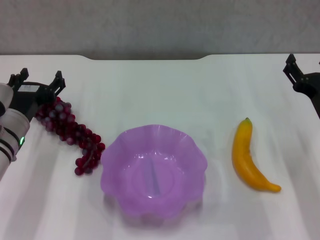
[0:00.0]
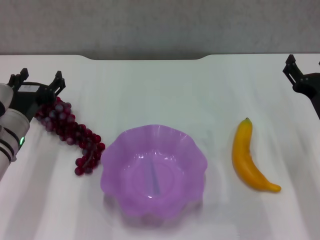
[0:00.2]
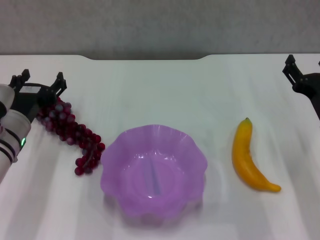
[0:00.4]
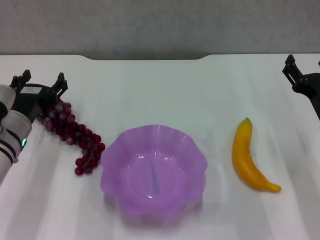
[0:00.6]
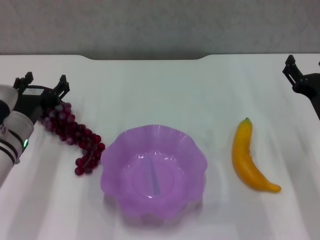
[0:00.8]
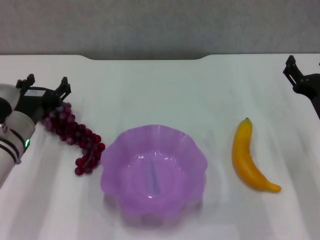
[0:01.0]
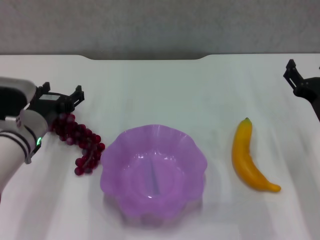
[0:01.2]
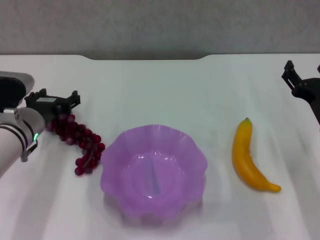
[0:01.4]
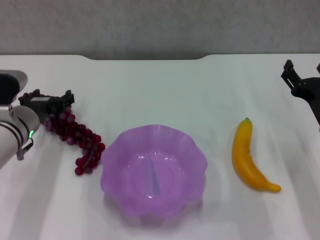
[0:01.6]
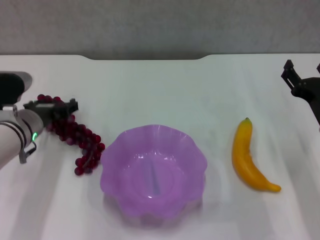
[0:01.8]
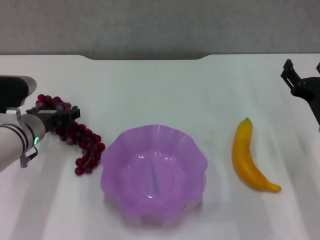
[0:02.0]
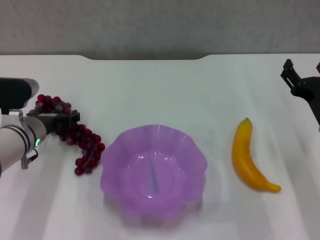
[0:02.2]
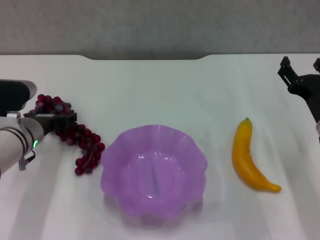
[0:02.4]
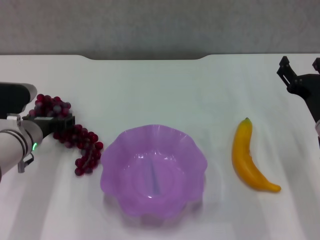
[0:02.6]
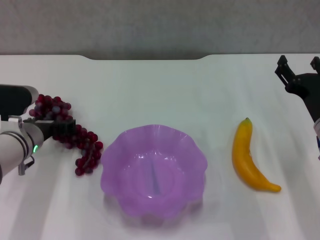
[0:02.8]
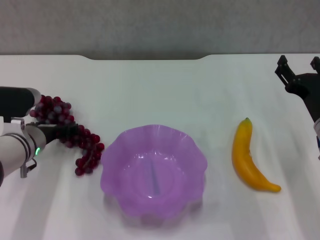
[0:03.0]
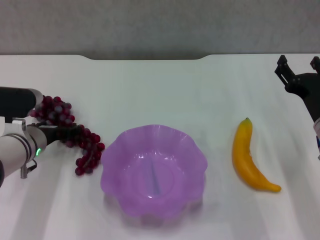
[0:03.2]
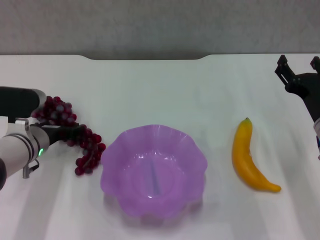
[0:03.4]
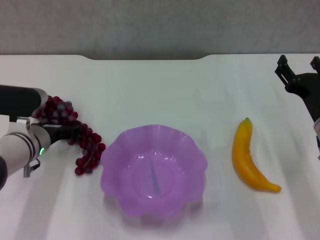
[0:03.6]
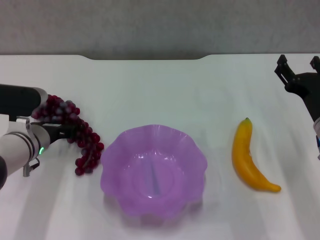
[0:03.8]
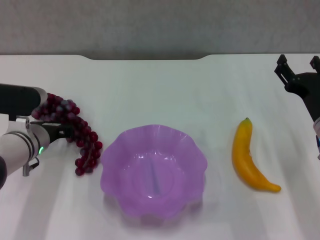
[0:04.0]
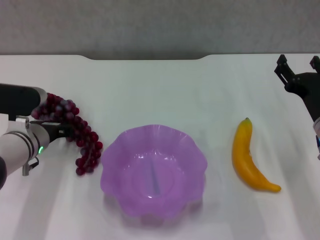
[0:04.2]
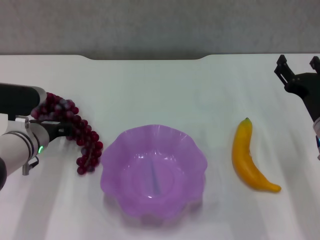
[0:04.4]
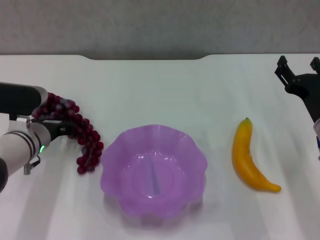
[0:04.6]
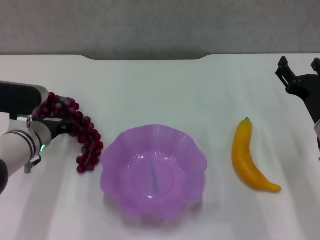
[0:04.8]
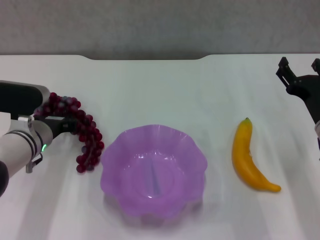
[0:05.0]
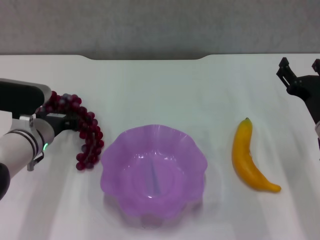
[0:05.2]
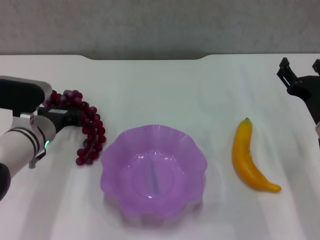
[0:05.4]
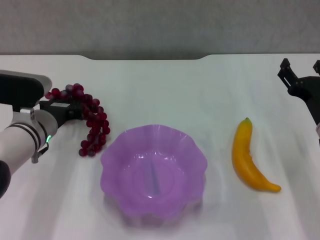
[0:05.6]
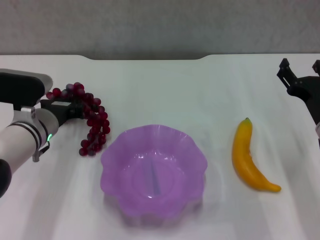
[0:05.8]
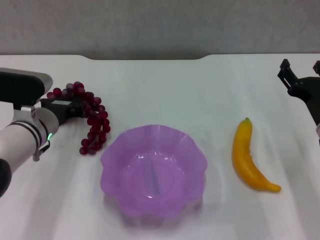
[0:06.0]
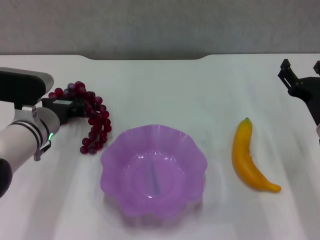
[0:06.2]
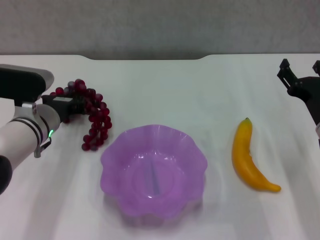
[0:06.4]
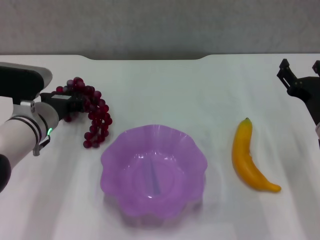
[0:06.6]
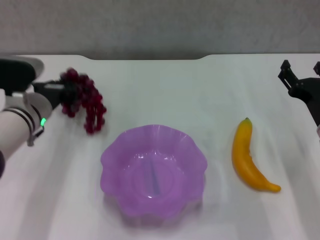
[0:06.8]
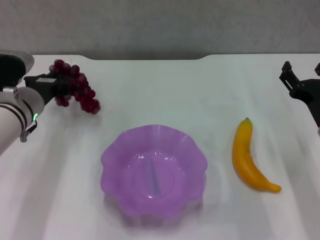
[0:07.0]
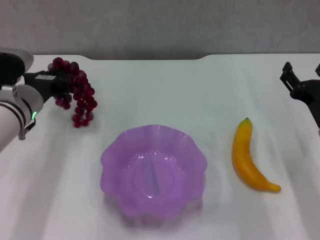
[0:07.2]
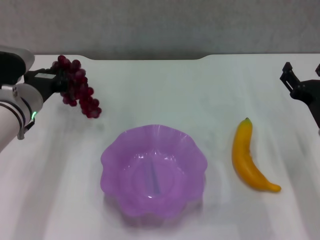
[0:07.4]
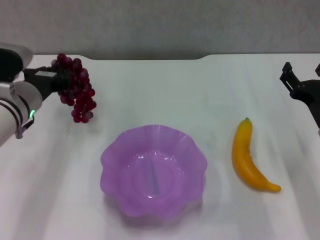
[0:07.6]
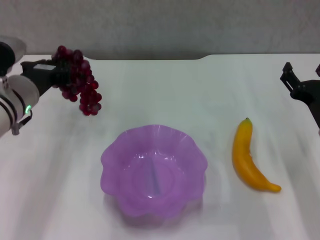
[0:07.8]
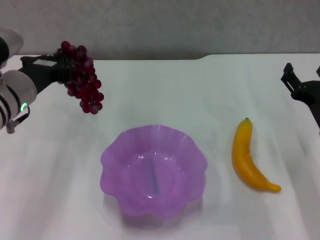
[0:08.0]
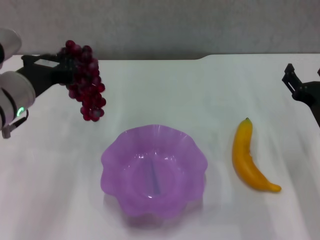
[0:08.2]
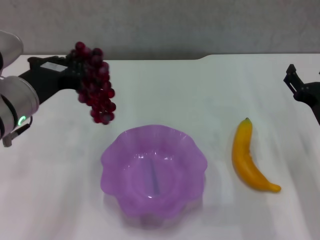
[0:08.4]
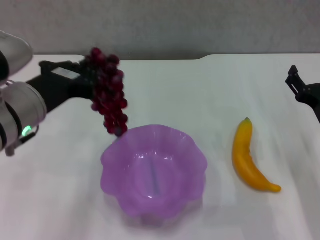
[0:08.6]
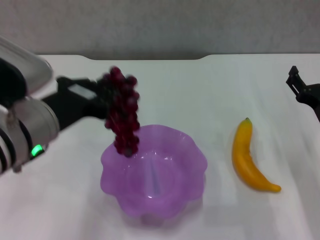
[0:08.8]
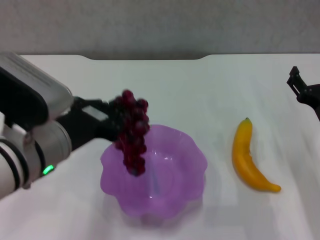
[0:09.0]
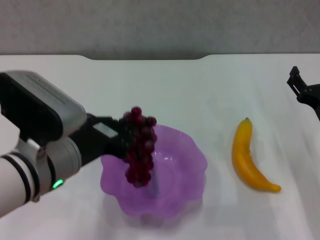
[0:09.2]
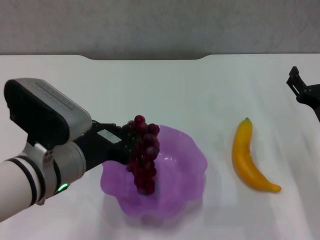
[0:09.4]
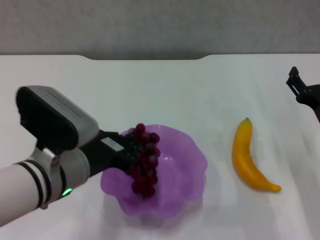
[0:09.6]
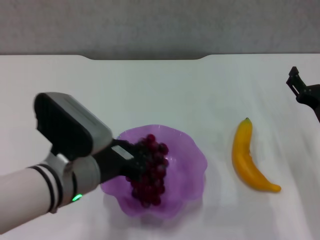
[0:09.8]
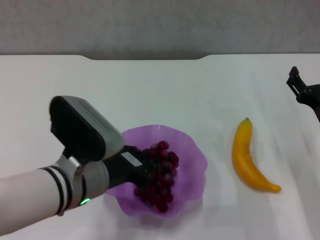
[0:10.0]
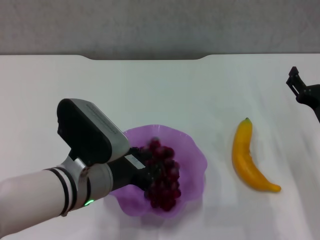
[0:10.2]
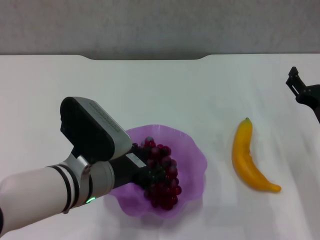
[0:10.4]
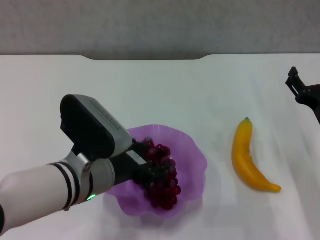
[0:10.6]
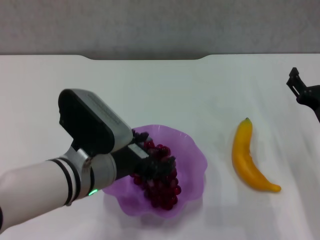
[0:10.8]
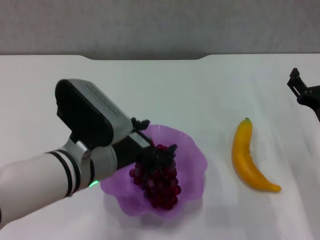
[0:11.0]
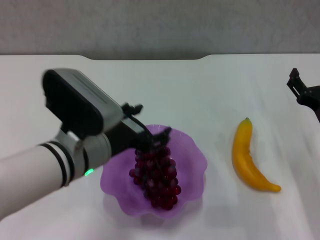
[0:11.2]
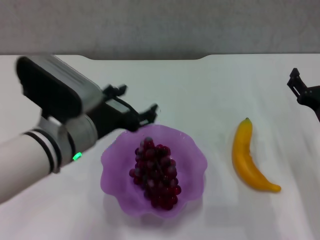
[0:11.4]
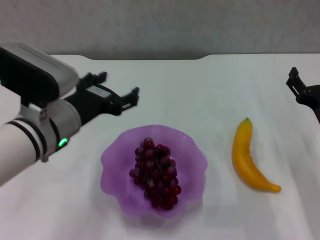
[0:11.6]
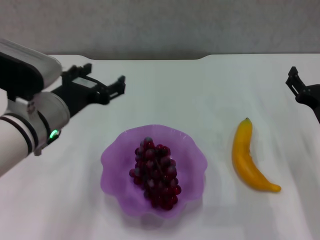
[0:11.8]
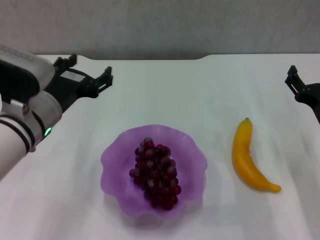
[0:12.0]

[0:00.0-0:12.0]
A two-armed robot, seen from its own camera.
Step, 0:00.0 to 0:04.4: Grasp the grape with left gripper.
Step, 0:04.6 to 0:10.8: Place the grape in the purple plate with left gripper.
0:00.0 to 0:01.6: The grippers move only a little.
0:01.6 to 0:03.0: The grippers stay close to where they were, moving slightly.
0:03.0 to 0:04.4: The left gripper closes up.
0:04.4 to 0:06.0: The grippers stay close to where they were, moving slightly.
0:06.0 to 0:07.6: The left gripper shifts by some 5 cm.
0:07.6 to 0:09.0: The left gripper moves backward, to the right and upward, approximately 15 cm.
0:09.0 to 0:10.4: The left gripper shifts about 5 cm downward.
0:10.4 to 0:12.0: The left gripper is displaced to the left and forward by some 10 cm, and opens its fingers.

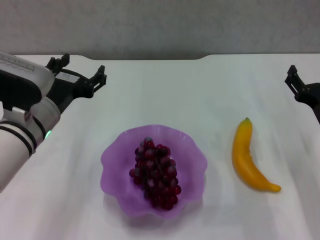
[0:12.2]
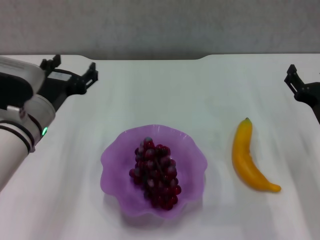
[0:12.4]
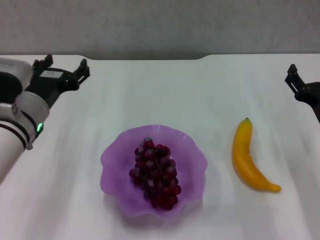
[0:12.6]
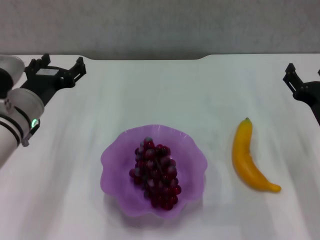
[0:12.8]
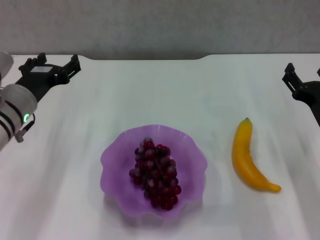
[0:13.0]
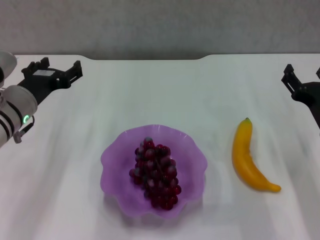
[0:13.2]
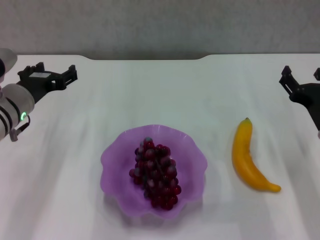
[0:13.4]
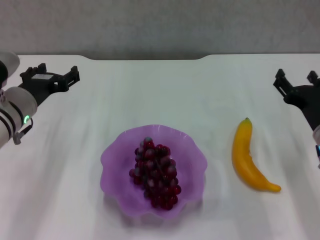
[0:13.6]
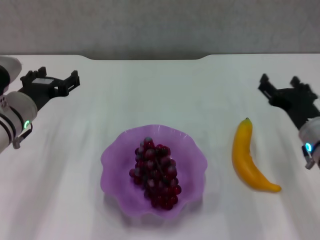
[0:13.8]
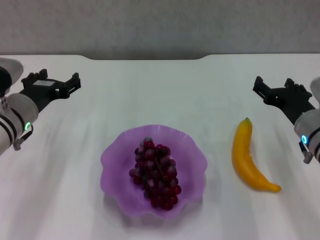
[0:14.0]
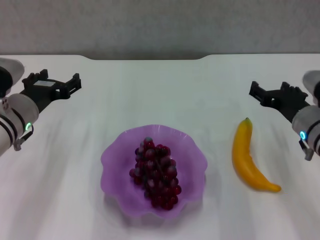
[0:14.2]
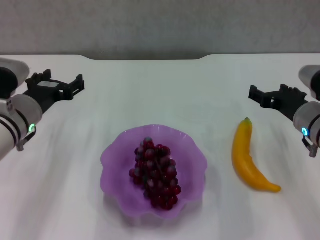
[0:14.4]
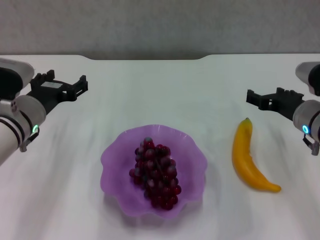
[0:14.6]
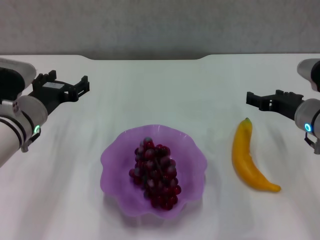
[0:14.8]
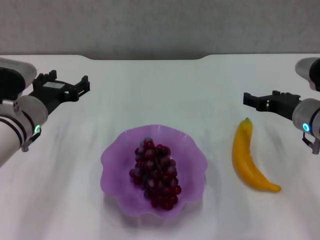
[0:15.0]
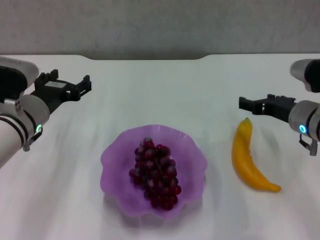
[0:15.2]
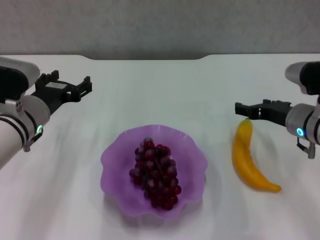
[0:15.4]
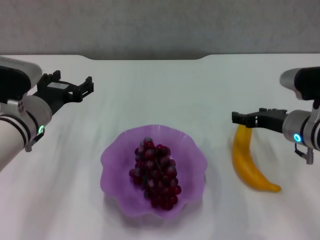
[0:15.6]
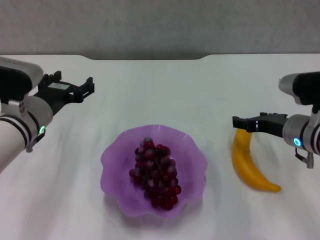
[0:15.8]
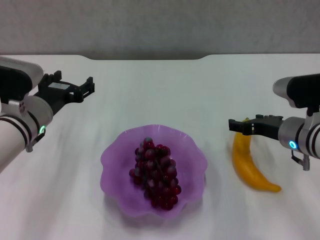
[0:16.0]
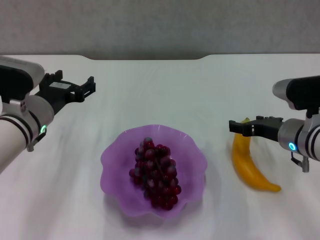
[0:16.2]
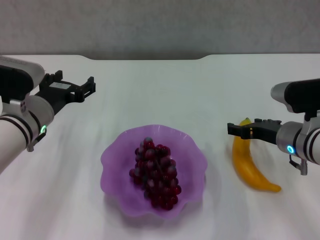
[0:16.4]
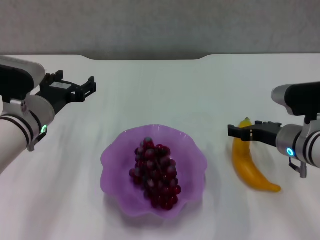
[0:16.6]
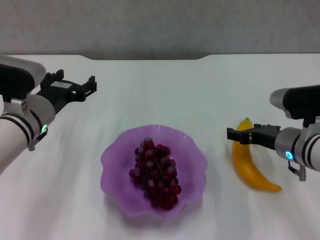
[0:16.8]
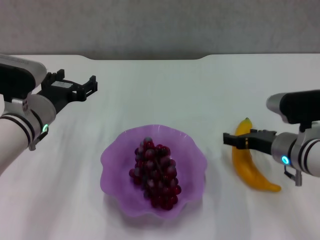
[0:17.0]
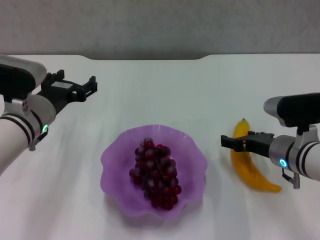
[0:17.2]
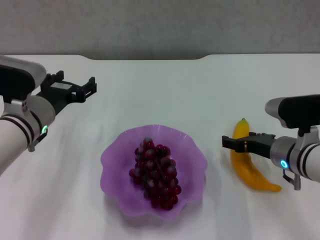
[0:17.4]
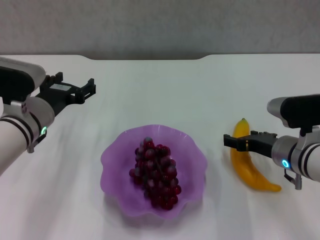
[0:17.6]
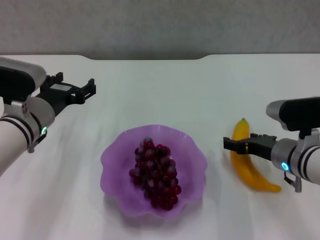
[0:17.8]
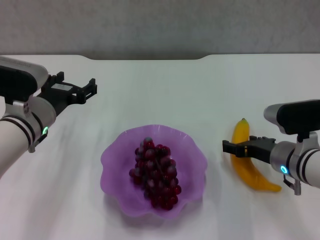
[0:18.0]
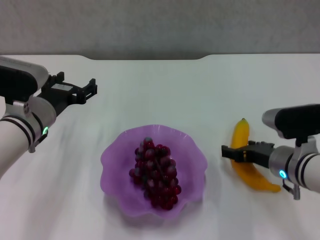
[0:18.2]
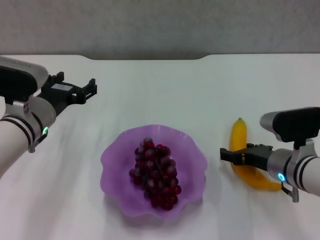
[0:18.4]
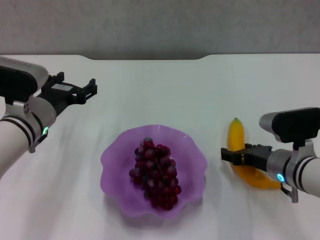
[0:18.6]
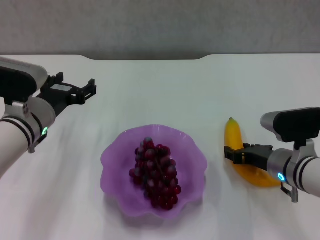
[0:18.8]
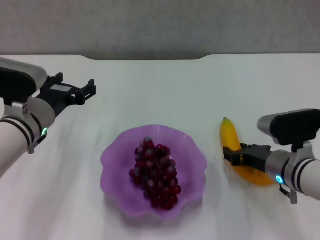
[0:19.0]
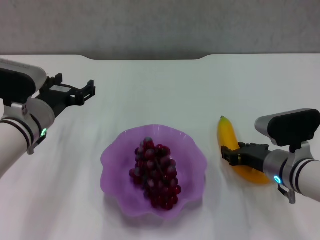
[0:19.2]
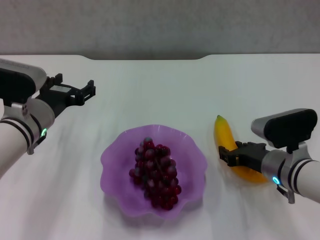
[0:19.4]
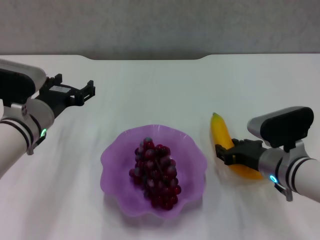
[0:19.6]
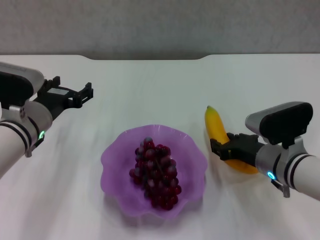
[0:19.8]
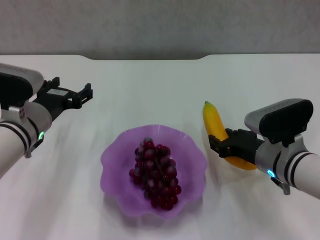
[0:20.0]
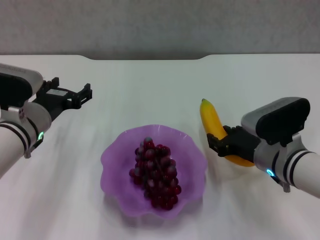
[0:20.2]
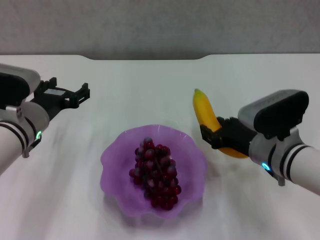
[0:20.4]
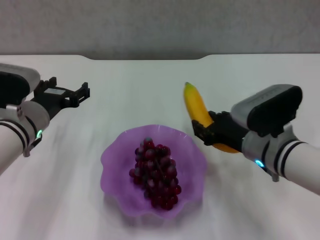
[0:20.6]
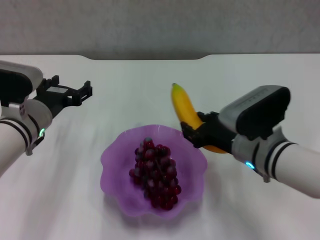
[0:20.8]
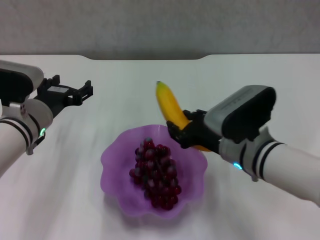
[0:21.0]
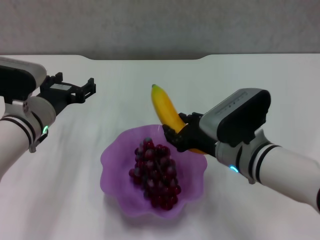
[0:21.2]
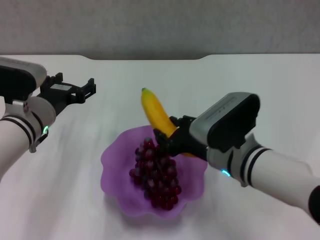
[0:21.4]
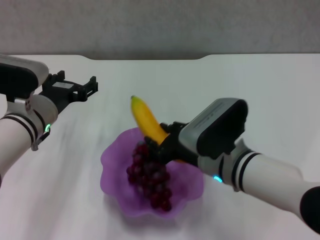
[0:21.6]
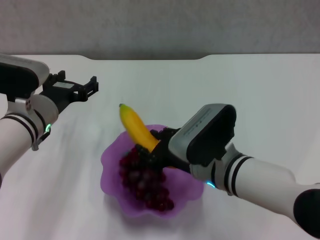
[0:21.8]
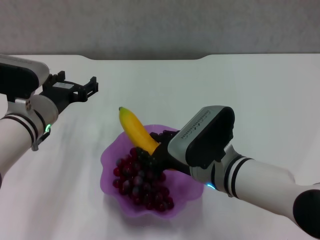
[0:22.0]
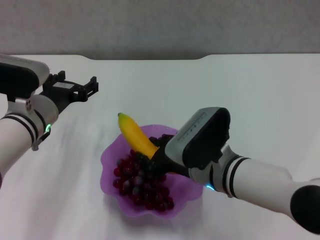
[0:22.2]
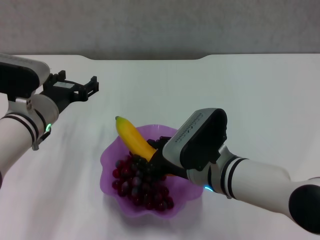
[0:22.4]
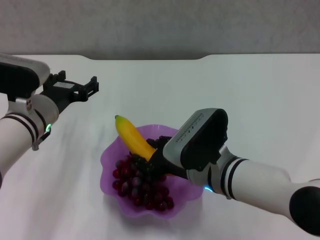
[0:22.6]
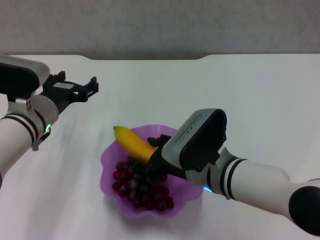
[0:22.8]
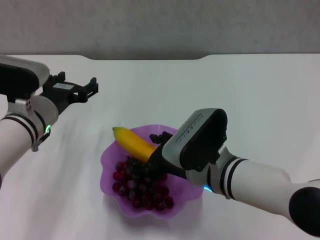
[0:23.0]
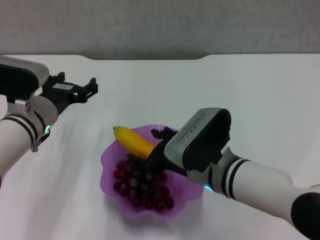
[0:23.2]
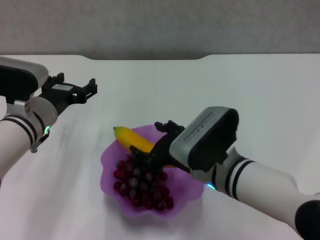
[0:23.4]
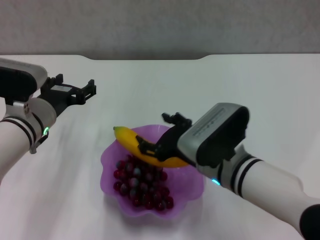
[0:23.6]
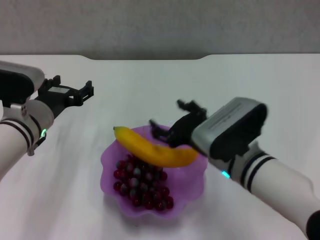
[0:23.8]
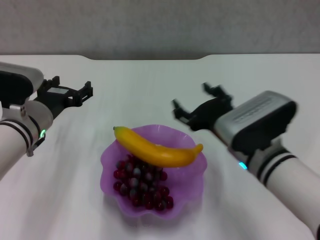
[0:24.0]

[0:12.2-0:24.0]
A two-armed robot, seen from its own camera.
Step, 0:12.2 to 0:18.8: Grasp the banana with right gripper.
Step, 0:19.2 to 0:23.0: Place the banana in the purple plate with right gripper.
0:12.2 to 0:13.6: The left gripper is displaced to the left by approximately 5 cm.
0:13.6 to 0:15.2: The right gripper moves approximately 5 cm.
0:15.2 to 0:16.6: The grippers move only a little.
0:16.6 to 0:18.2: The grippers make only small movements.
0:18.2 to 0:19.6: The right gripper closes up.
0:19.6 to 0:21.0: The right gripper is displaced to the left and upward by some 10 cm.
0:21.0 to 0:22.6: The right gripper changes place by approximately 5 cm.
0:22.6 to 0:24.0: The right gripper ends up roughly 5 cm from where it was, and opens.
